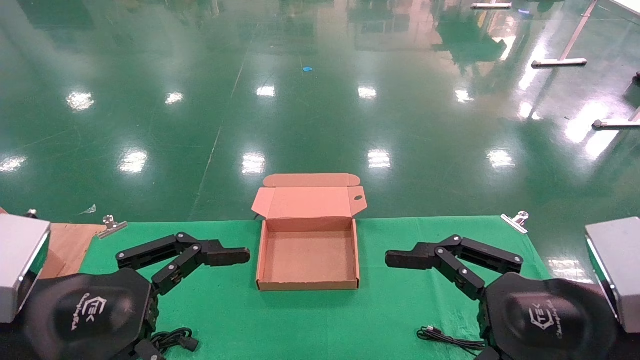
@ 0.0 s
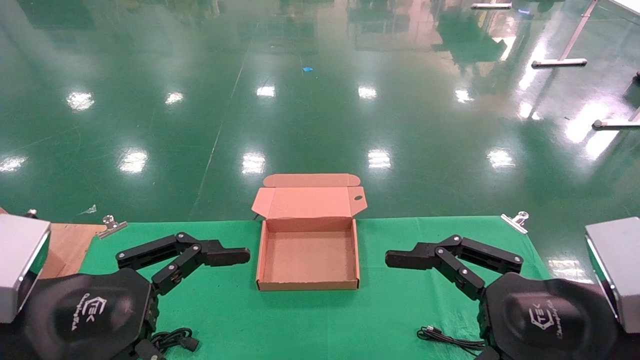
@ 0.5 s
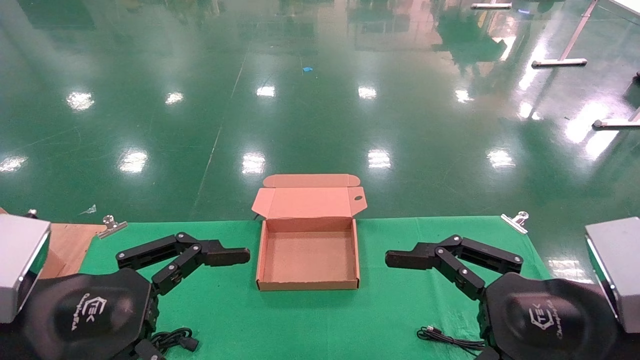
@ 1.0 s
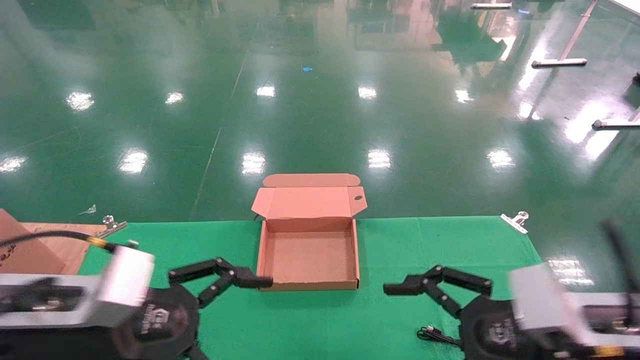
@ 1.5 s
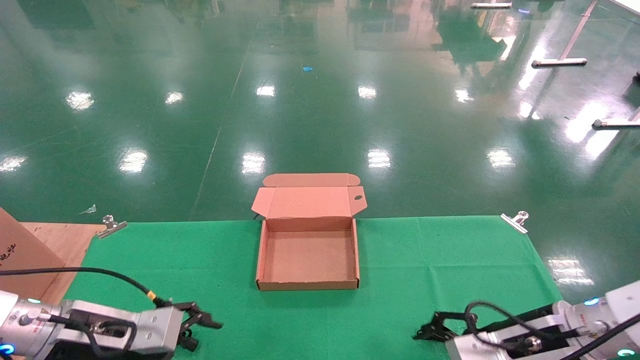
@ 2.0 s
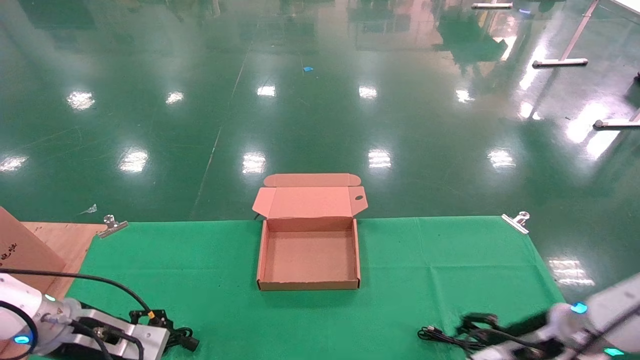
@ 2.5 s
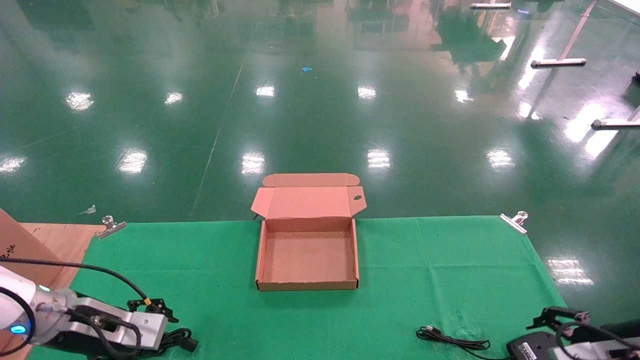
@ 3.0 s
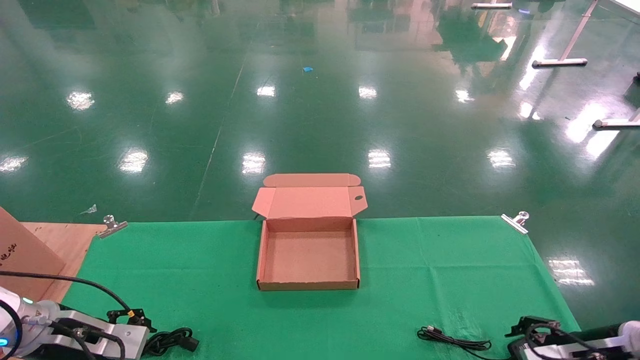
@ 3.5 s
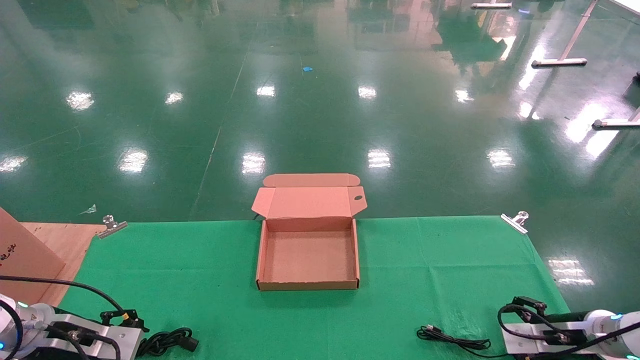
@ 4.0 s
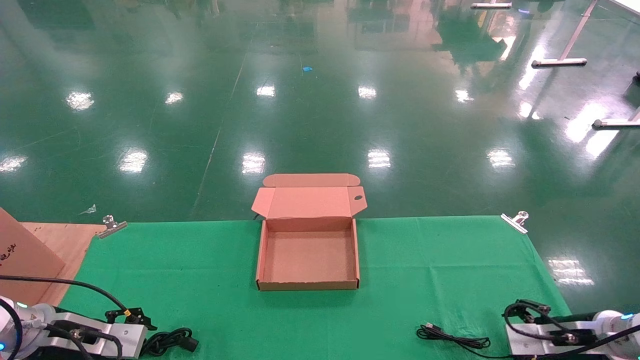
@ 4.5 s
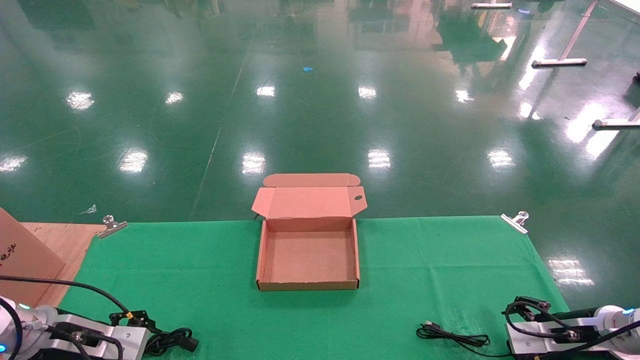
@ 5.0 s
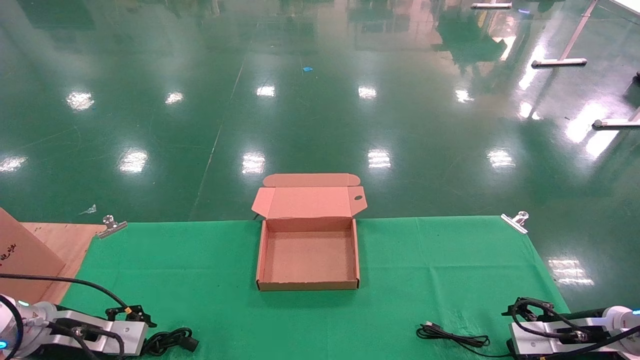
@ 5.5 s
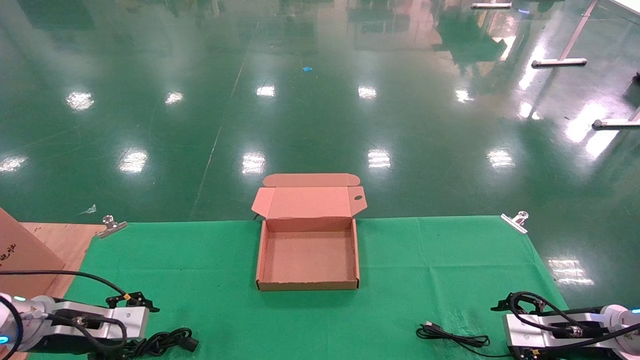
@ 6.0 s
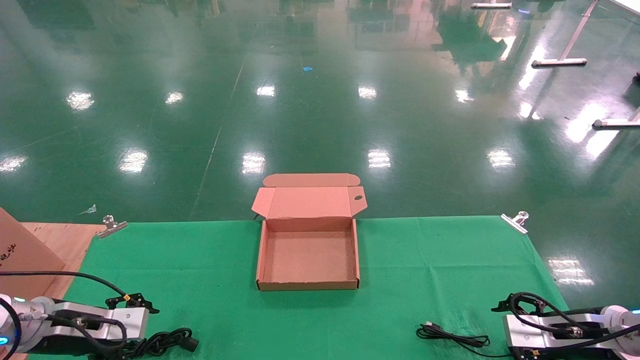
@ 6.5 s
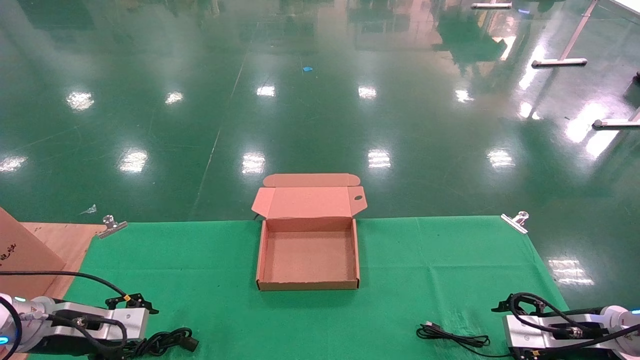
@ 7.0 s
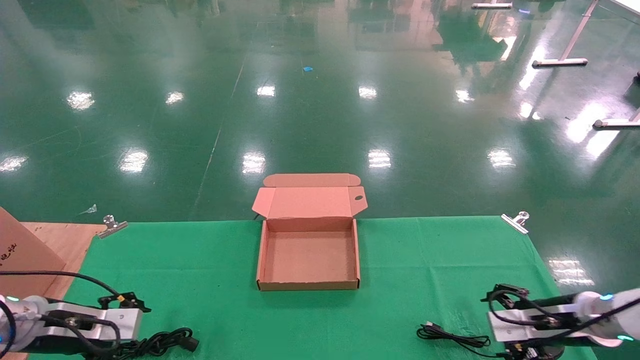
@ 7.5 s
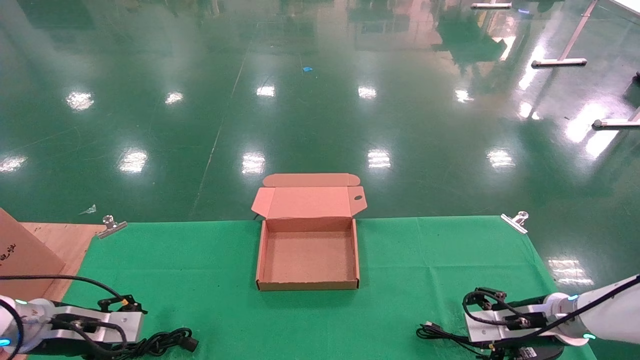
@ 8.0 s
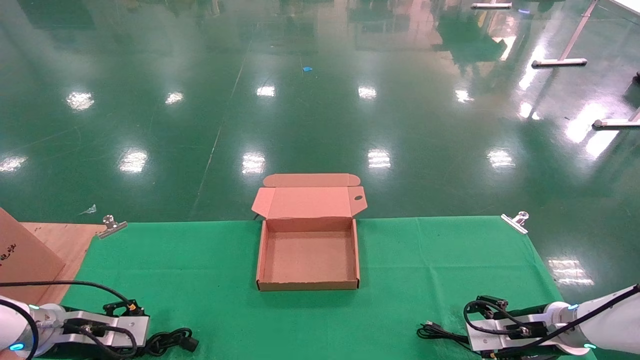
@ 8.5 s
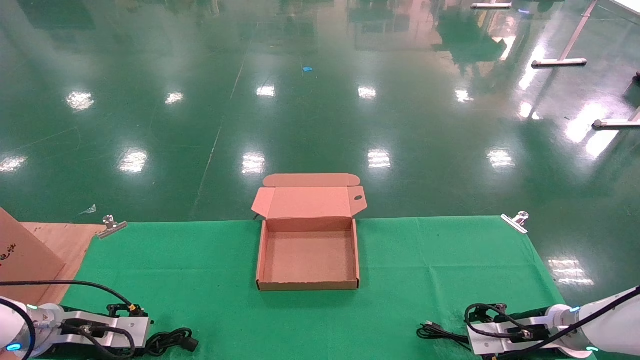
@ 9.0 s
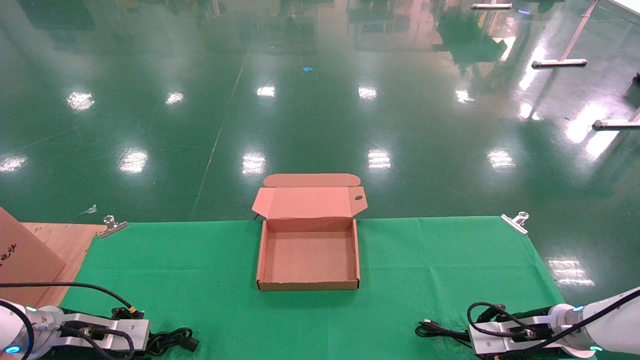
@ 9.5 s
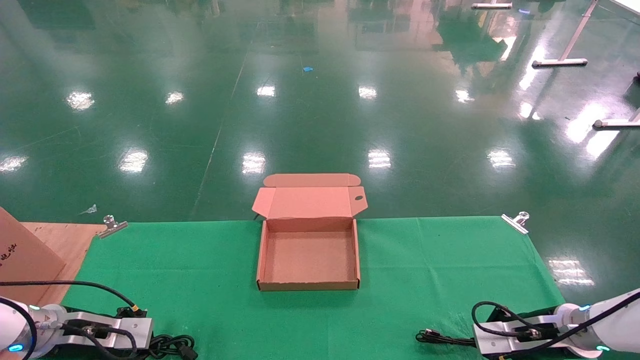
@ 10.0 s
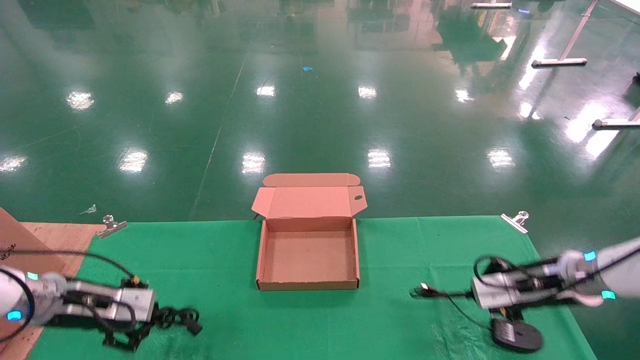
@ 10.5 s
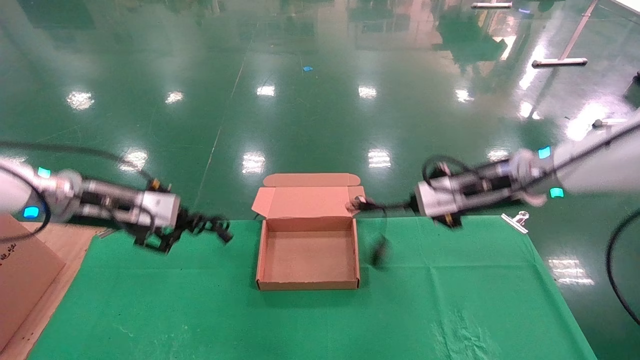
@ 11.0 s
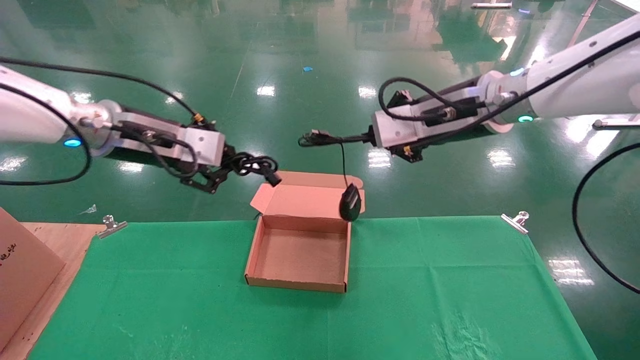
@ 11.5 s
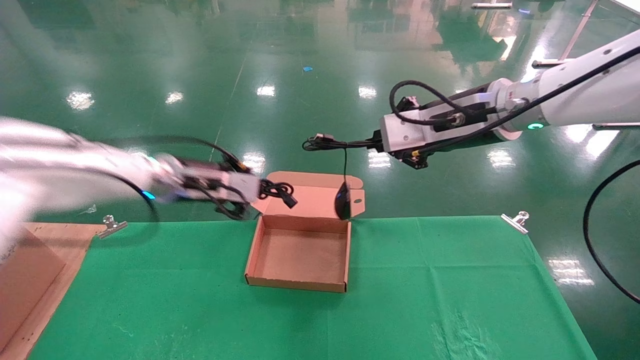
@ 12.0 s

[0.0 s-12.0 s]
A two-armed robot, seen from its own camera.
Step, 2.5 to 10.5 s: Grab and lift both the mouse and power cord from the accessory packaging area at the same time.
0.0 to 2.0 s: Both grippers move forward and downward, approximately 15 cm.
2.0 to 4.0 s: The left gripper goes some 10 cm to the left, while the right gripper goes some 15 cm to the right, forward and downward.
4.0 to 6.0 s: The grippers move only a little.
6.0 to 8.0 s: The right gripper shifts by about 5 cm.
8.0 to 10.0 s: The right gripper closes its fingers; the left gripper closes.
10.0 to 12.0 s: The right gripper heads upward and to the left, covering some 35 cm, while the left gripper goes approximately 30 cm upward, to the right and forward.

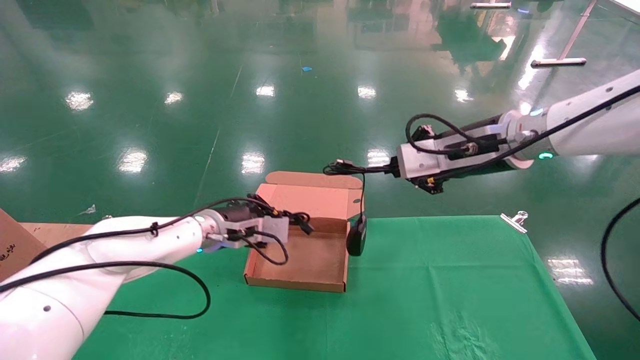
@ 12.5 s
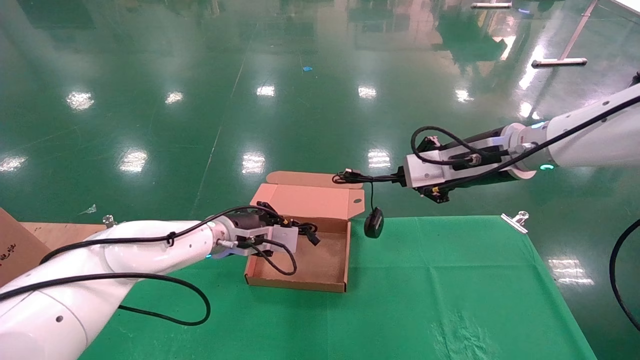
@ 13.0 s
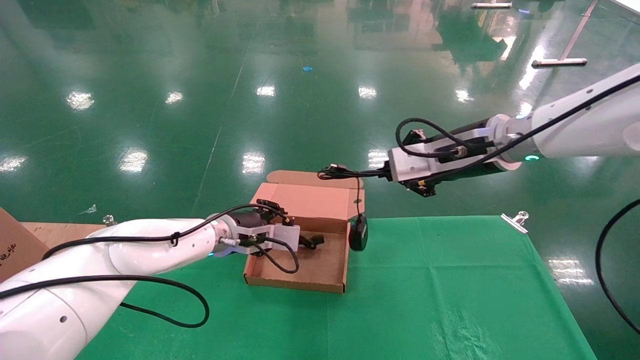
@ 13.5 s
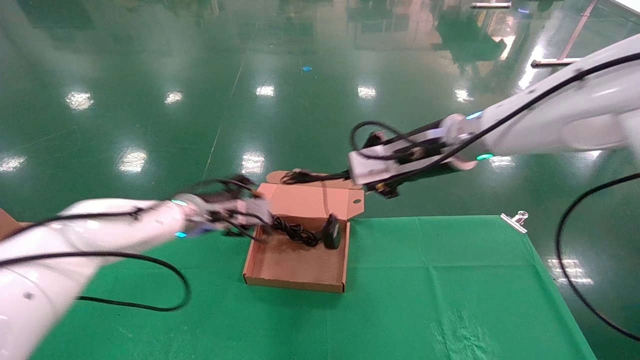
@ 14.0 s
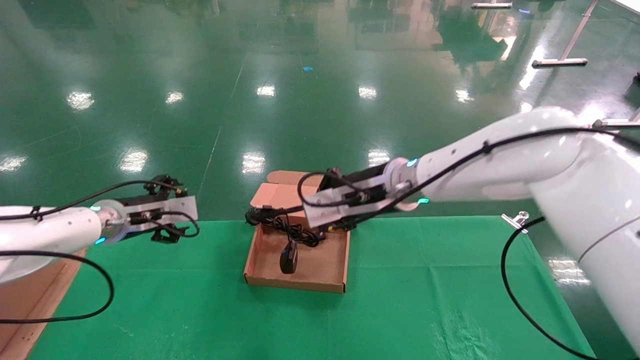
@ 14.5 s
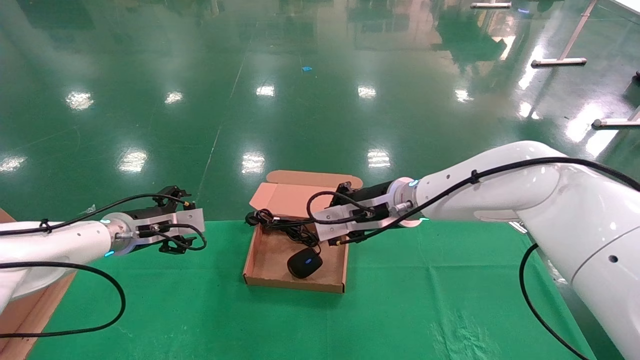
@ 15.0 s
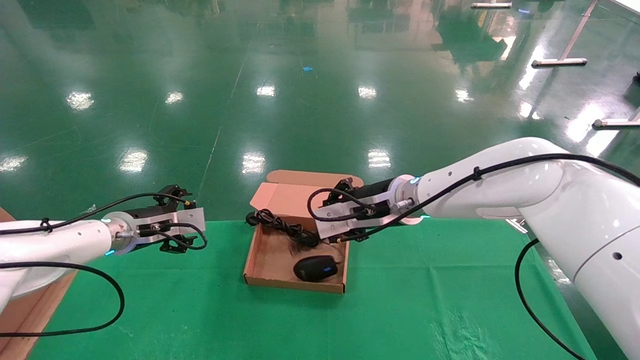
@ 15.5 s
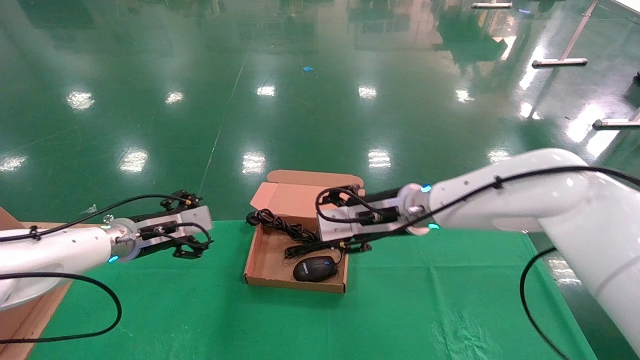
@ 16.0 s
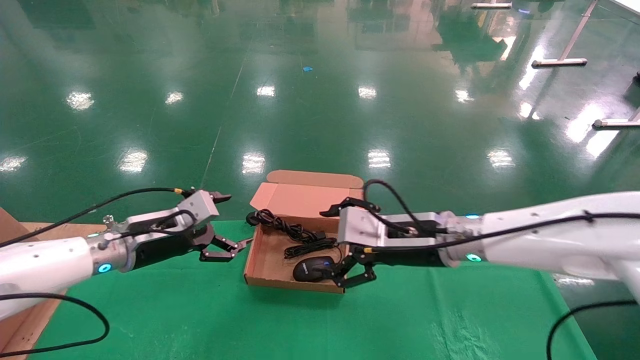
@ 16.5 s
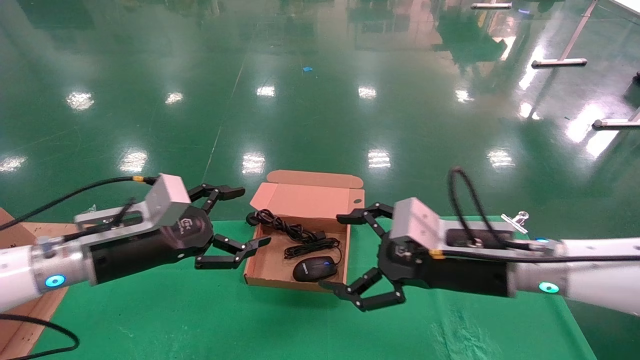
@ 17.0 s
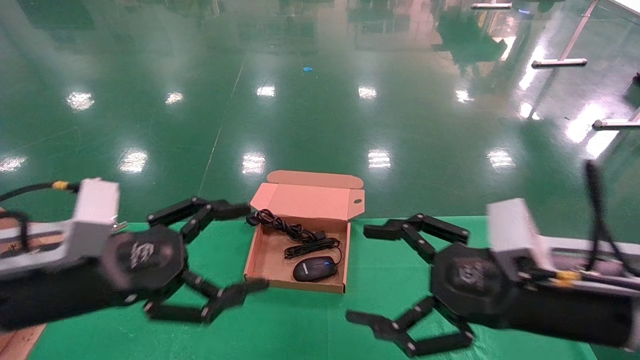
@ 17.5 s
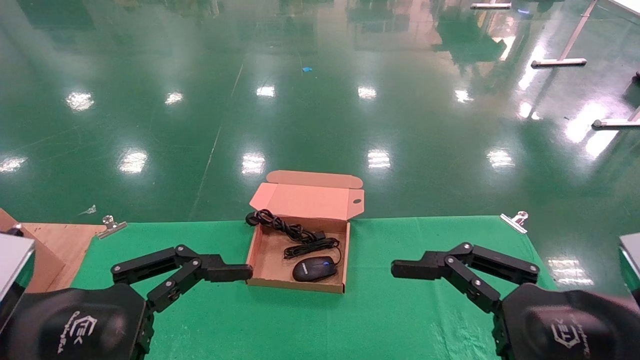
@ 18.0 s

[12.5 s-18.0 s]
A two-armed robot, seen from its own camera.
Step, 12.5 to 16.5 s: Place the mouse and power cord into the box.
12.5 to 14.5 s: The right gripper goes approximately 15 cm to the left and downward, while the left gripper moves to the left, roughly 15 cm, and opens its fingers.
14.5 to 16.0 s: The right gripper opens up.
16.0 to 18.0 s: The left gripper moves backward, roughly 30 cm. The right gripper heads backward and to the right, covering roughly 30 cm, and opens.

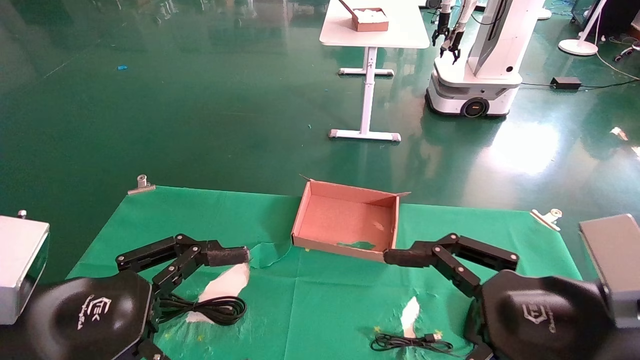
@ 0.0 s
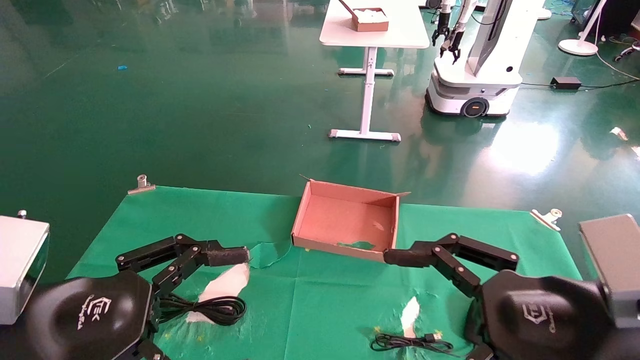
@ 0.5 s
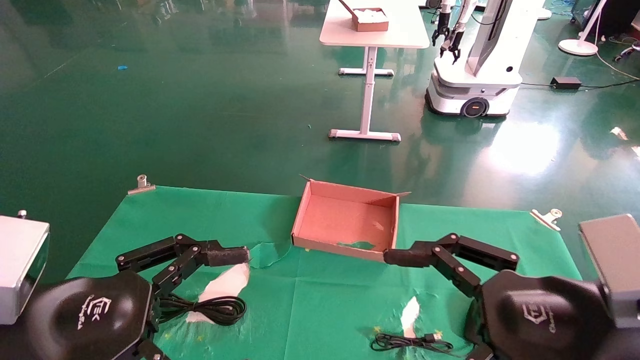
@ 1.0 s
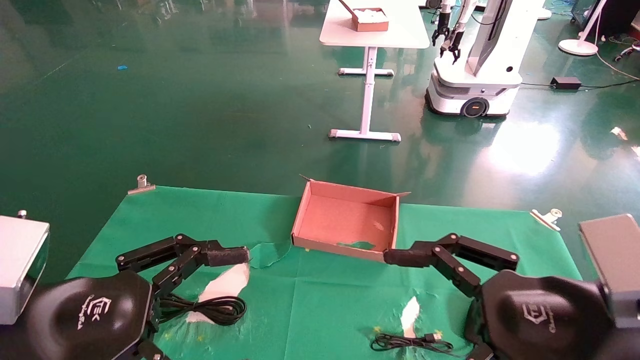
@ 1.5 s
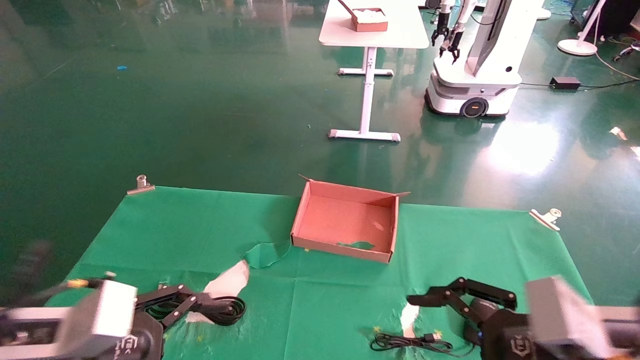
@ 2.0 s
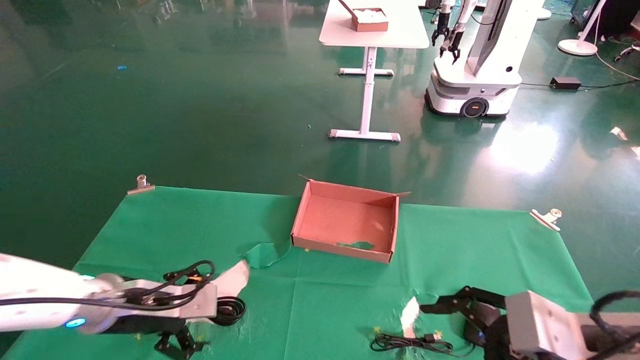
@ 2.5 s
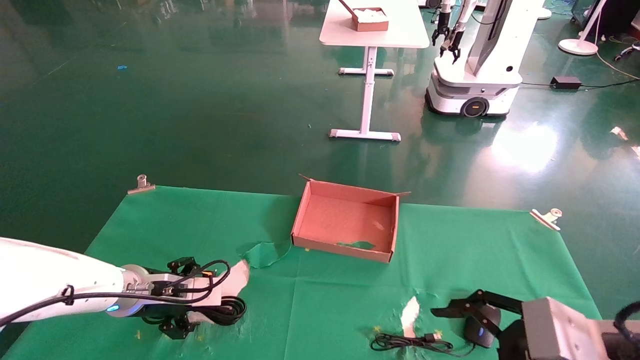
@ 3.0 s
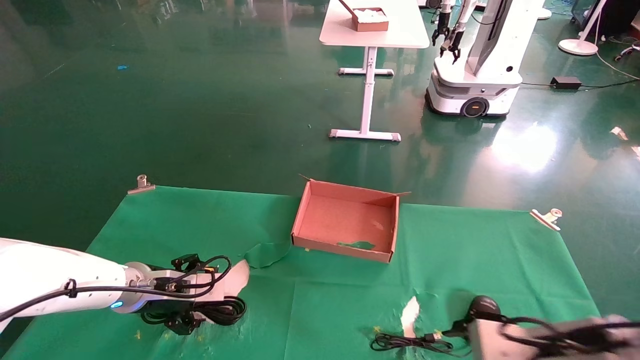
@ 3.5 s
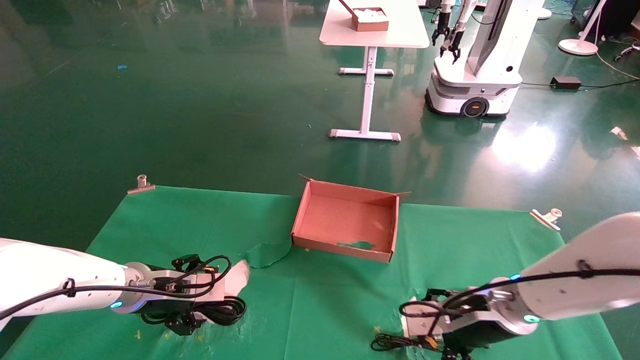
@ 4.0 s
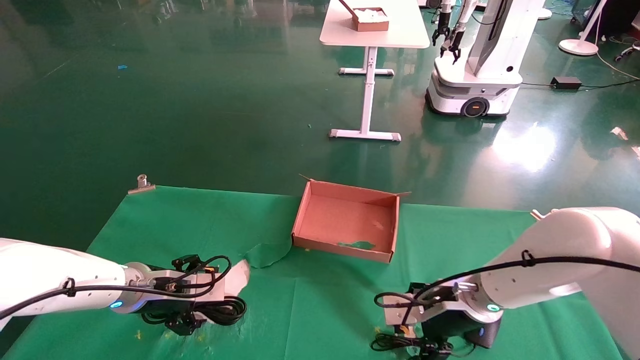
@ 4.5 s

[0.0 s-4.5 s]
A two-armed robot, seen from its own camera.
0.0 to 2.0 s: The left gripper goes about 10 cm forward and downward.
2.0 to 4.5 s: Both grippers move forward, roughly 20 cm.
